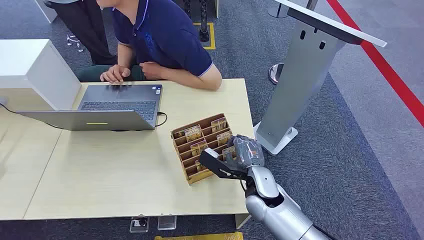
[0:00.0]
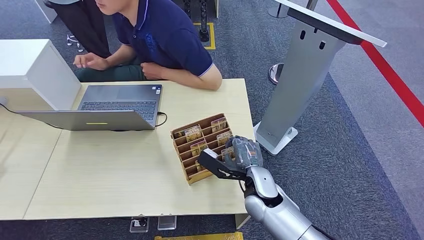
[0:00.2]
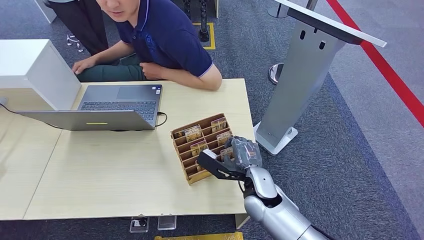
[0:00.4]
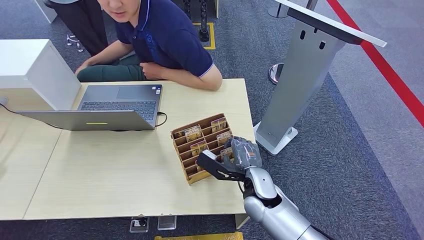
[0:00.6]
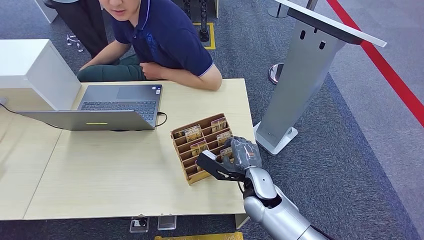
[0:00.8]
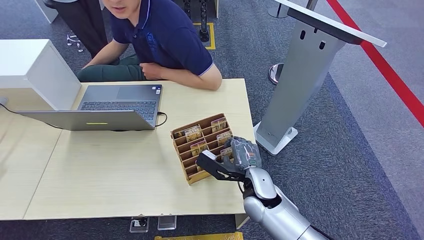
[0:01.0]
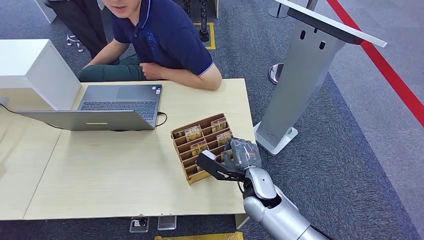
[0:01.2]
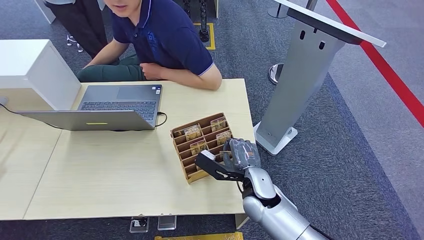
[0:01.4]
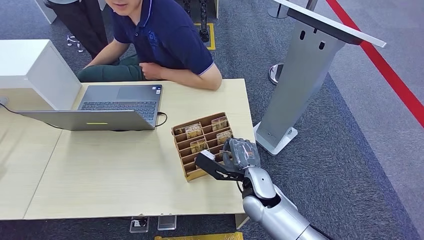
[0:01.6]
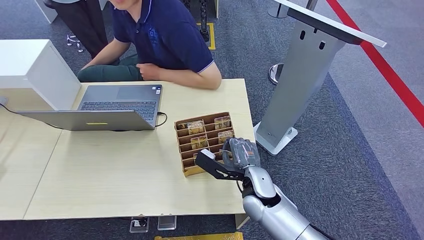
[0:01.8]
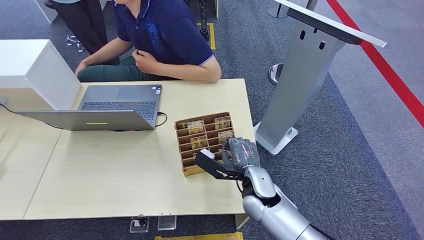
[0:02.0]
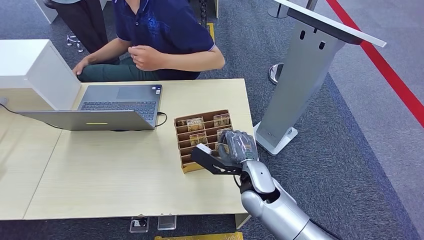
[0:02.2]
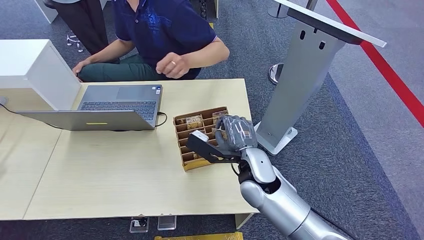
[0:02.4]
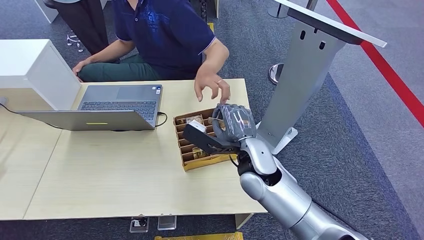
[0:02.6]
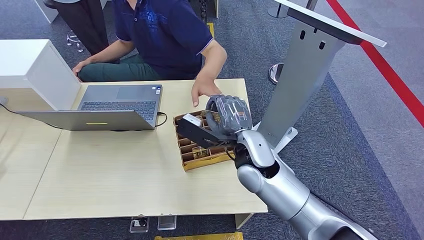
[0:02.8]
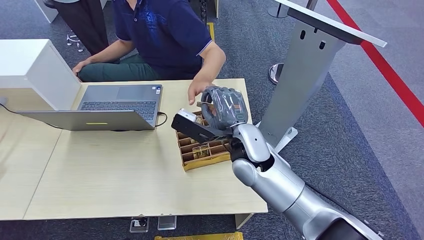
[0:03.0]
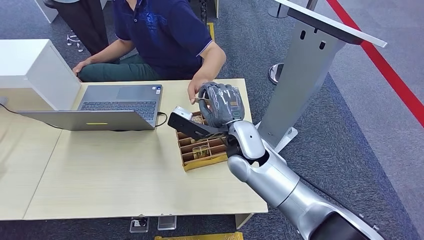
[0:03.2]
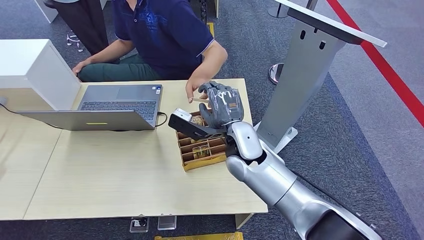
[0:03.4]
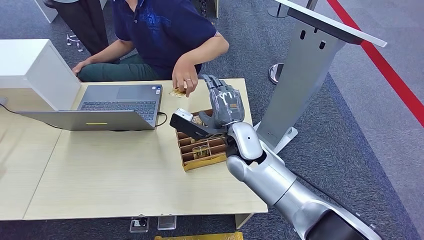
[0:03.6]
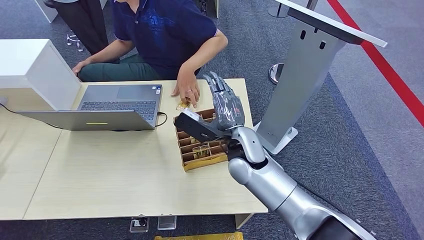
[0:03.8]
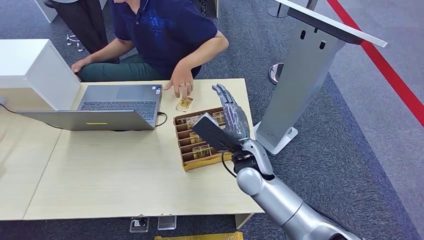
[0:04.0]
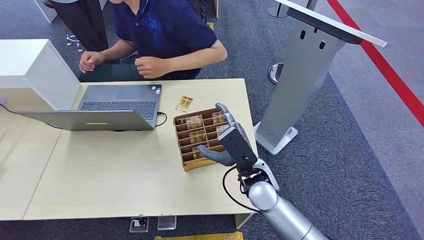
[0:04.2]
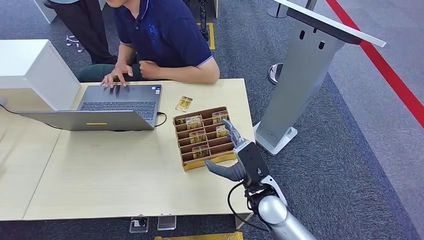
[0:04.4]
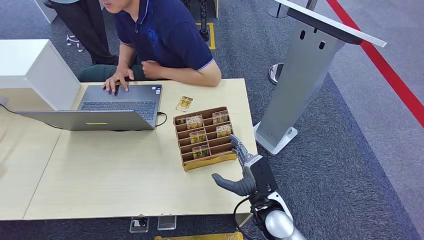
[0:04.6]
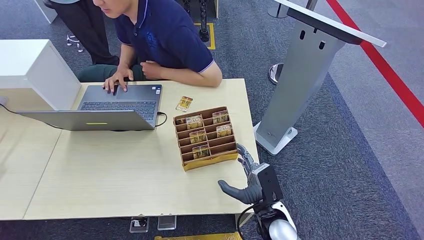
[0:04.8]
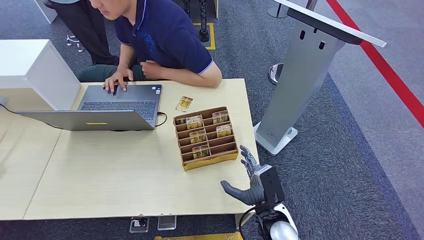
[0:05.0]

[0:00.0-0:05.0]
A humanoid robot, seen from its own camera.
Task of the whole recording: Pick up the card and hand it over to the target person.
Step, 0:00.0 to 0:02.2: Pick up the key card from the card box.
Step, 0:02.4 to 0:05.0: Hand the key card to the target.
0:01.6 to 0:03.4: The right hand moves upward and forward, approximately 15 cm.
0:03.4 to 0:05.0: The right hand moves backward, downward and to the right, some 25 cm.
